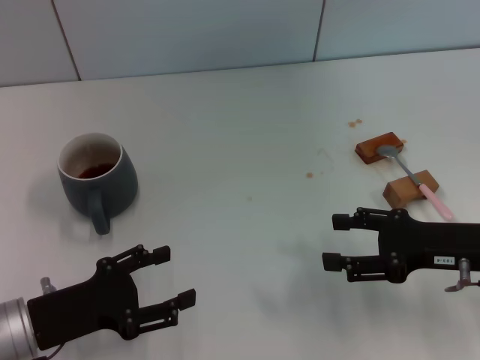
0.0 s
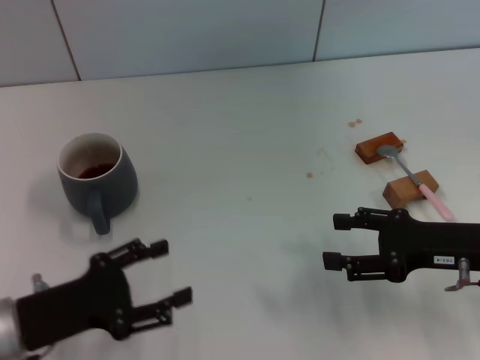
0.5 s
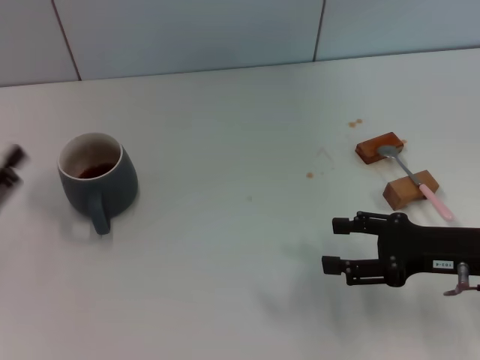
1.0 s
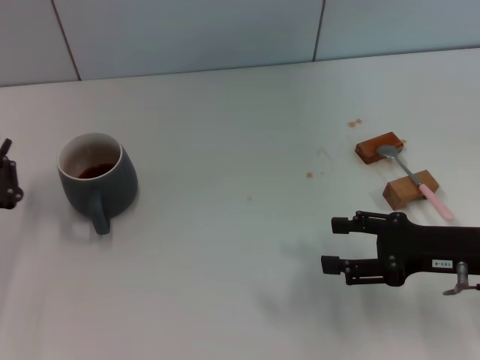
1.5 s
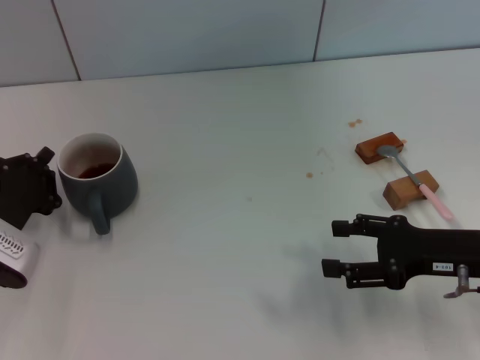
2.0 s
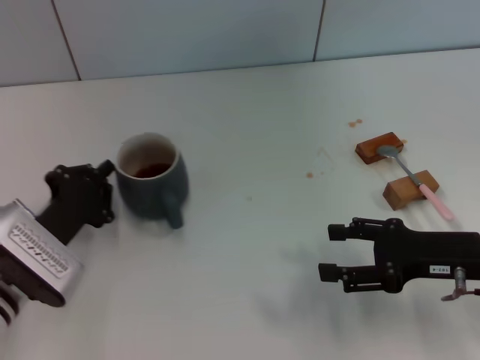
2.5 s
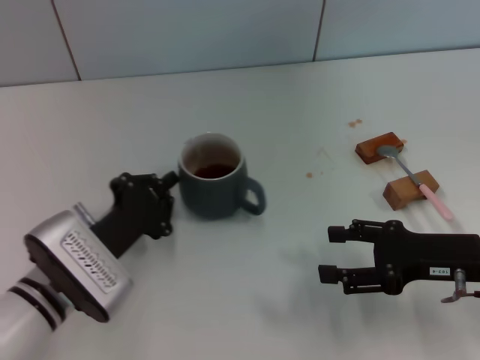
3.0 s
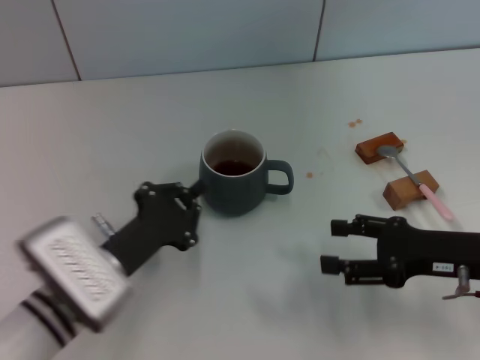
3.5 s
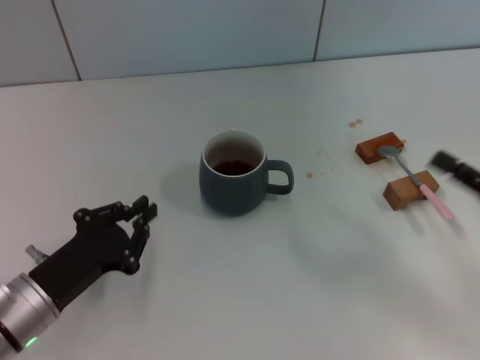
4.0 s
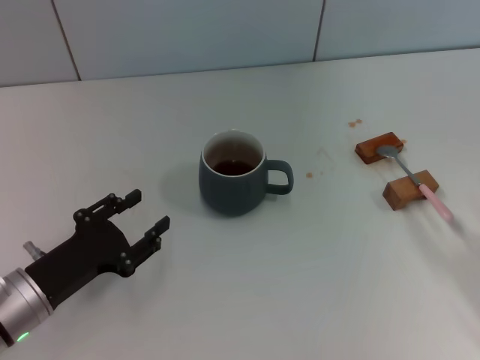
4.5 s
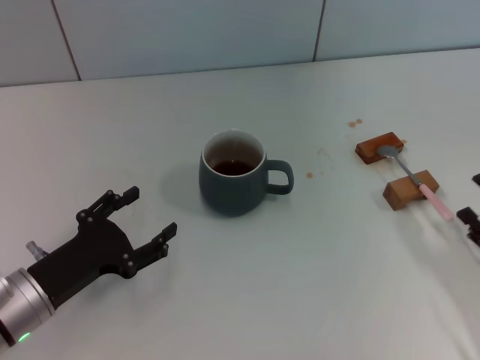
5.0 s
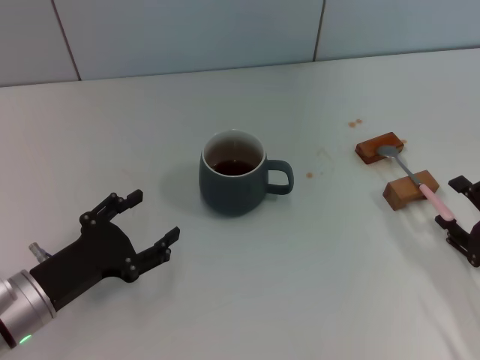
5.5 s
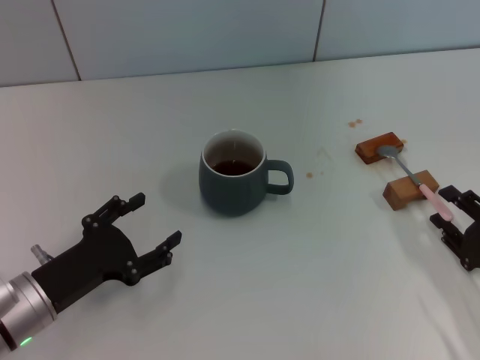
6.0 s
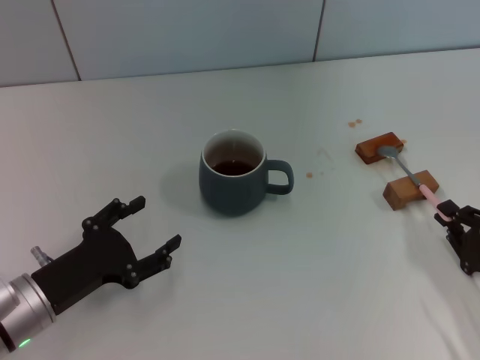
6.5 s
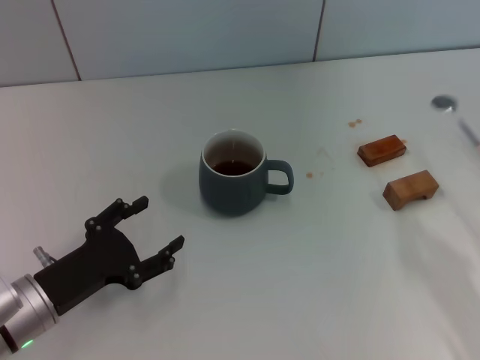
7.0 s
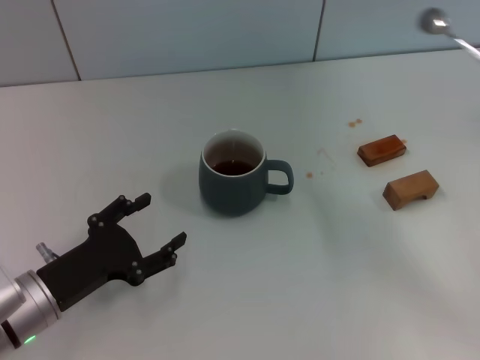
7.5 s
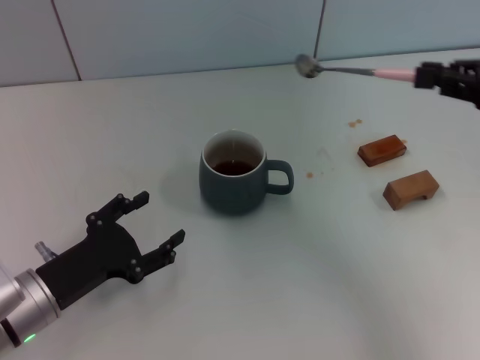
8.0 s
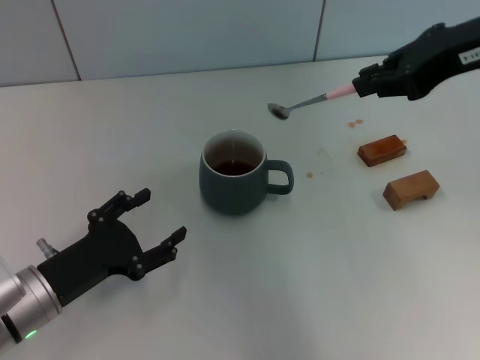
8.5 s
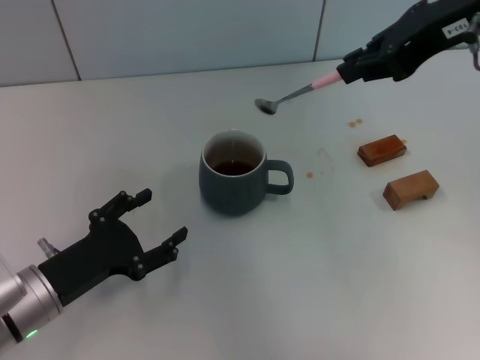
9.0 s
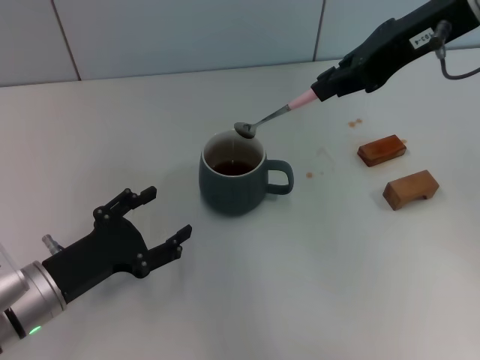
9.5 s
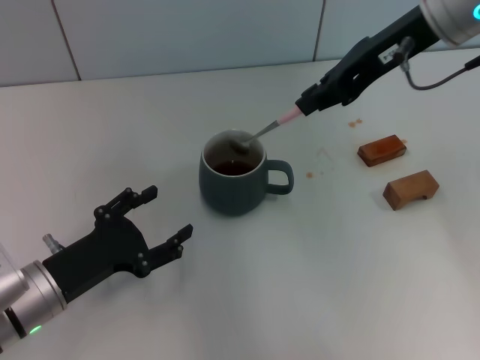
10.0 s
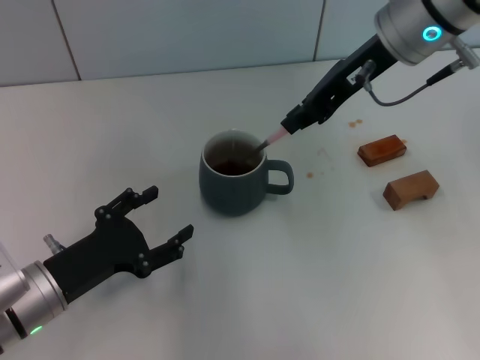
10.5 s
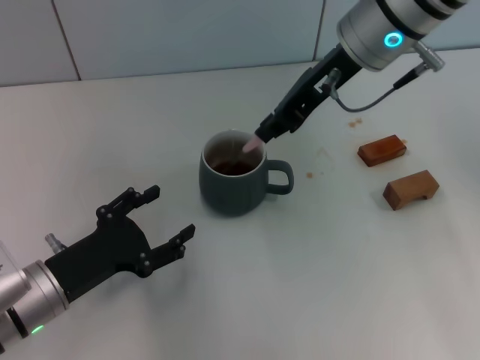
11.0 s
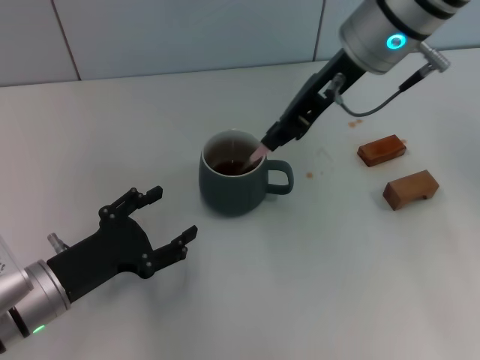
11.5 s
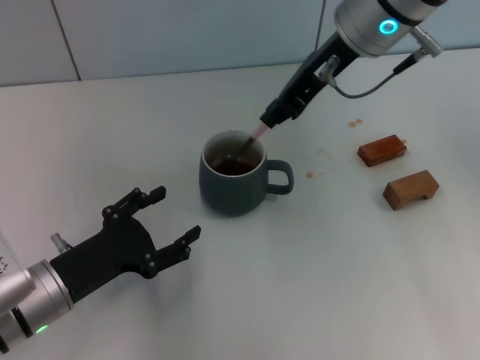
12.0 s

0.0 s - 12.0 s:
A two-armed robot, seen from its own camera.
Task of the whole recording: Move the grey cup to the center, lift the pink spoon, stir it three times in the cup, and put the spoon into the cup.
Step, 0.0 s - 3.0 s: Move the cup with coffee to the center of view with the left gripper.
Step, 3.5 s - 7.0 s: Pick up the spoon with the right gripper.
Step, 7.5 s - 11.5 s: Stir the coffee in the cup with the right gripper.
0.0 s - 2.0 s: The left gripper heads forward, covering roughly 5 cm, goes to the left and returns, roughly 10 cm each way, and closes up.
2.0 s - 4.0 s: The left gripper is displaced backward by about 5 cm. Meanwhile the right gripper moves to the right, approximately 5 cm.
4.0 s - 6.0 s: The left gripper opens, while the right gripper heads downward, covering about 5 cm.
6.0 s - 8.0 s: The right gripper moves upward and forward, roughly 25 cm, and closes its fingers.
8.0 s - 10.0 s: The right gripper travels to the left and forward by some 15 cm.
10.0 s - 12.0 s: The right gripper goes some 5 cm to the left.

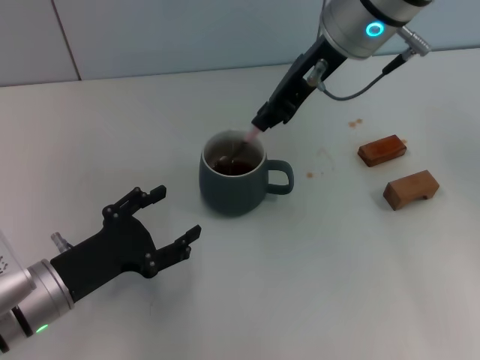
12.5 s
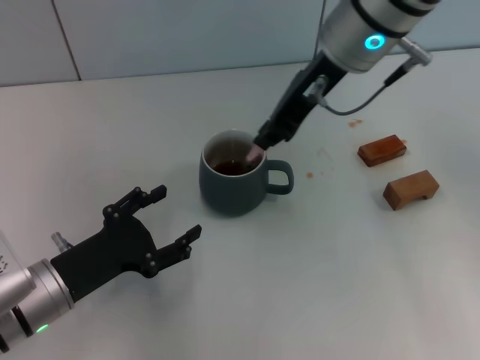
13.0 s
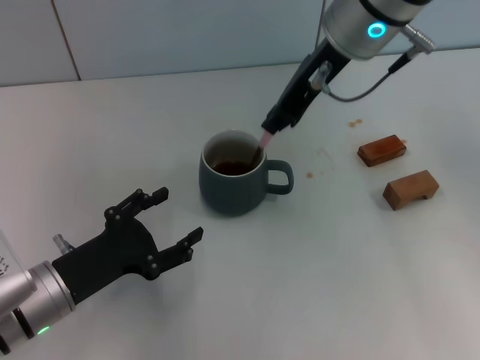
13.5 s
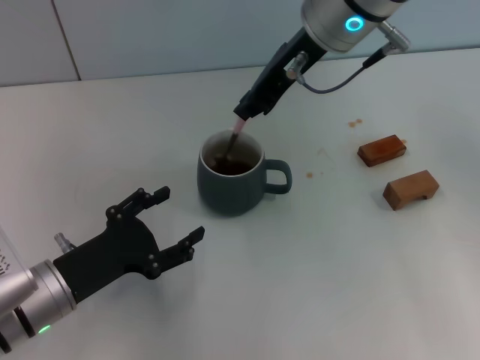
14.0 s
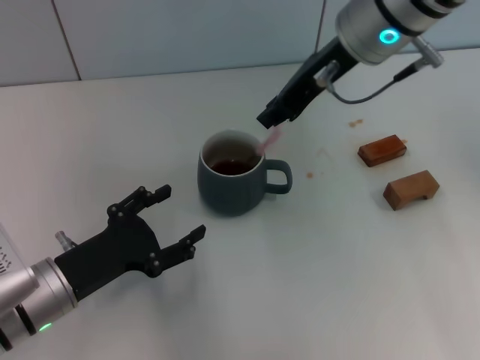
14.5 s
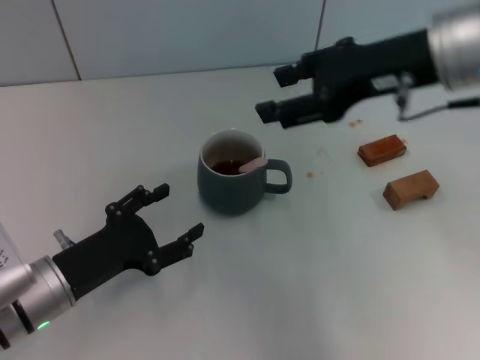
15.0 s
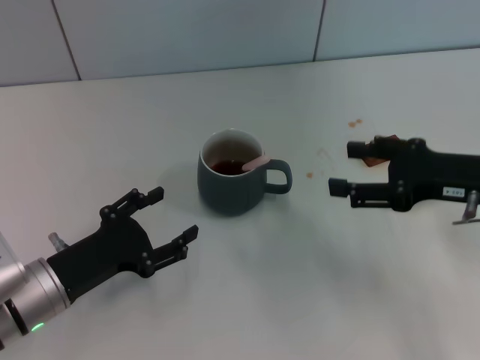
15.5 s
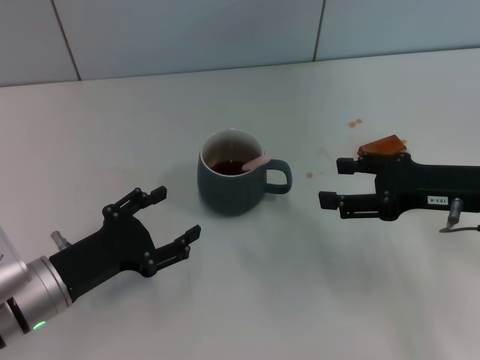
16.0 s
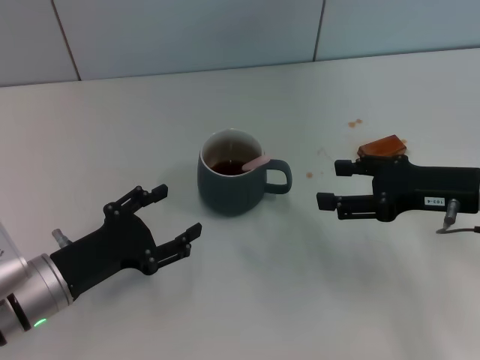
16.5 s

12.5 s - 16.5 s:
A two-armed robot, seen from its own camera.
Task of the whole recording: Move the grey cup to the center, lift the pink spoon, stir it three times in the cup, and put the spoon into the cup.
12.5 s - 14.5 s: The grippers move only a little.
14.5 s - 16.5 s: The right gripper travels to the right, downward and backward by roughly 25 cm, and opens.

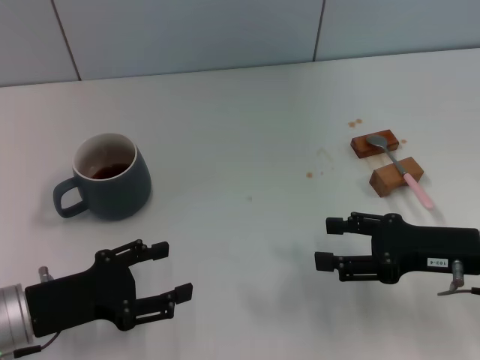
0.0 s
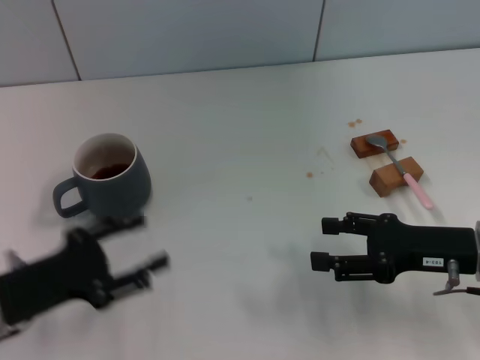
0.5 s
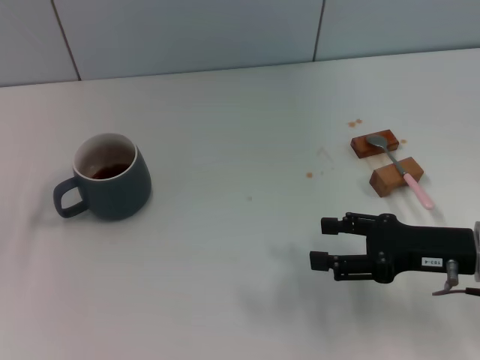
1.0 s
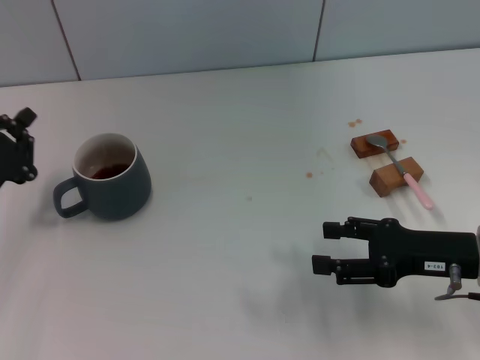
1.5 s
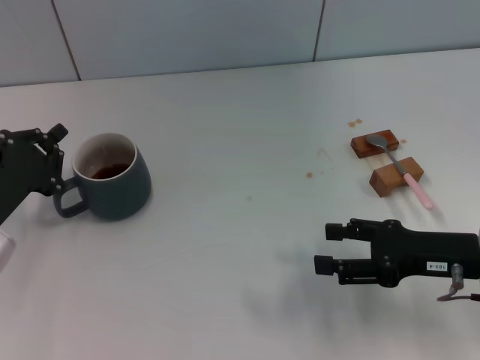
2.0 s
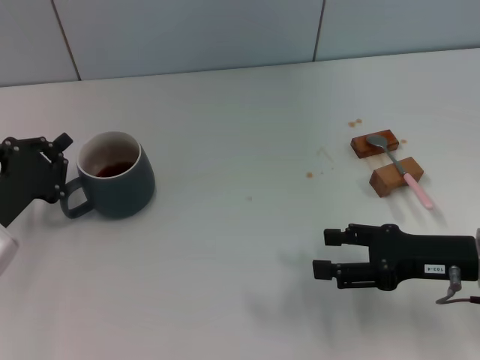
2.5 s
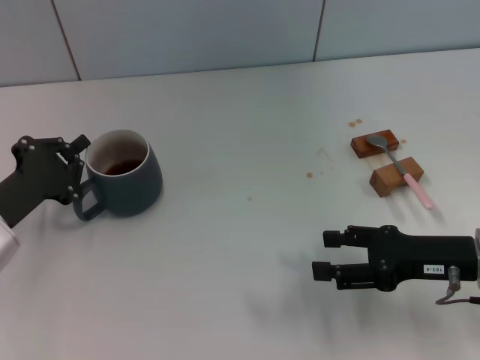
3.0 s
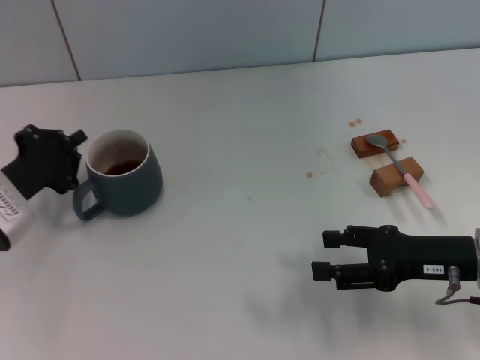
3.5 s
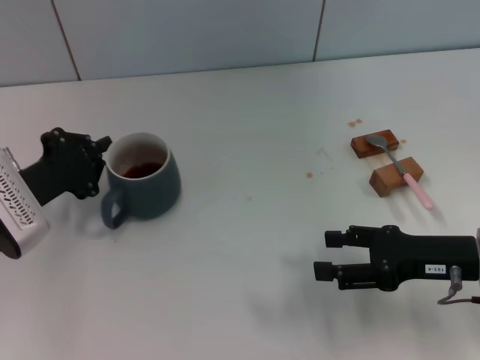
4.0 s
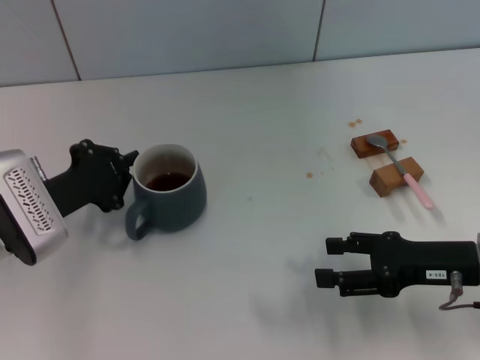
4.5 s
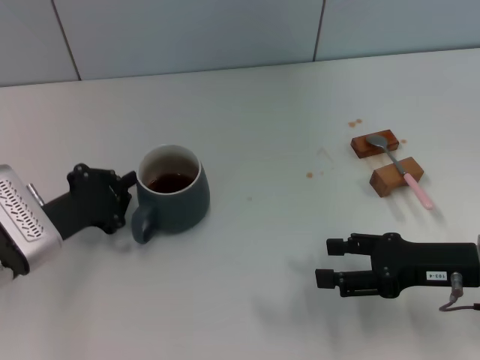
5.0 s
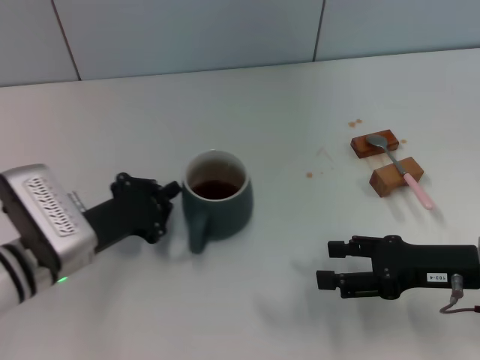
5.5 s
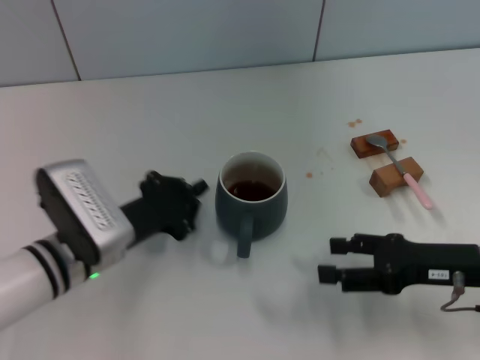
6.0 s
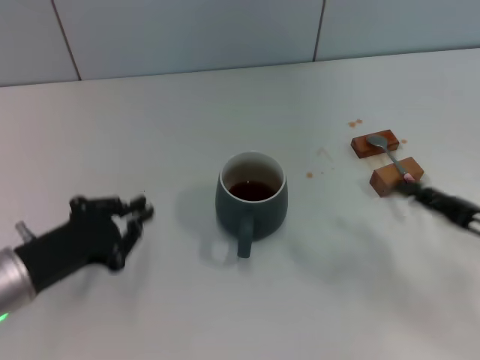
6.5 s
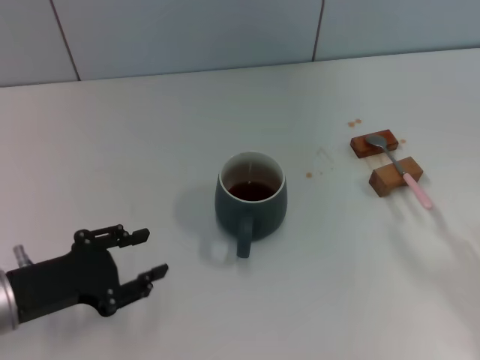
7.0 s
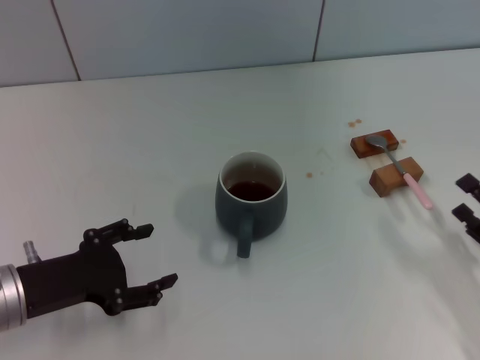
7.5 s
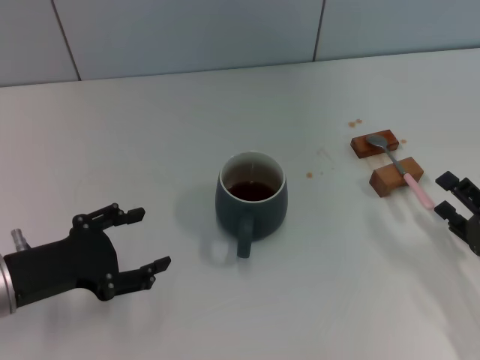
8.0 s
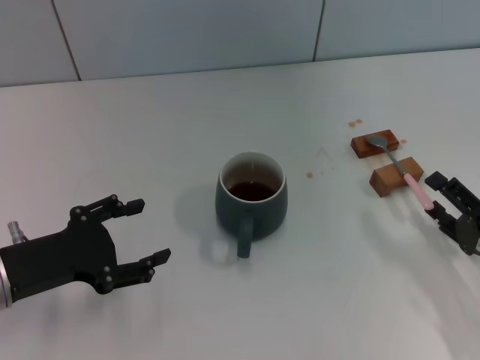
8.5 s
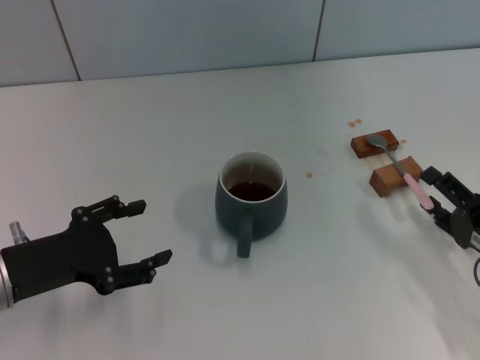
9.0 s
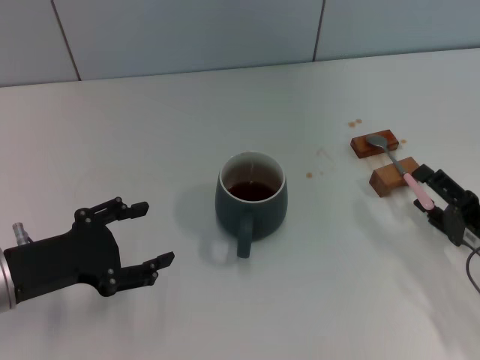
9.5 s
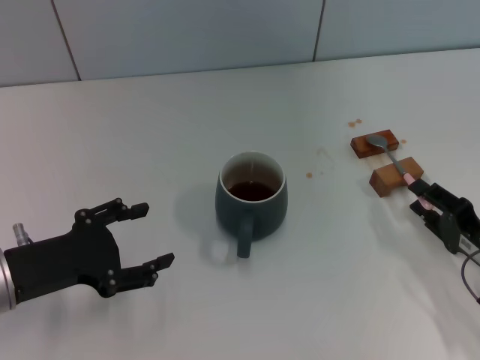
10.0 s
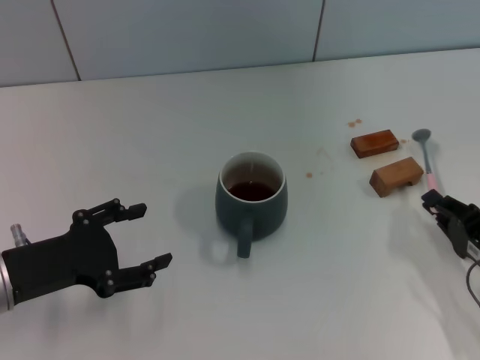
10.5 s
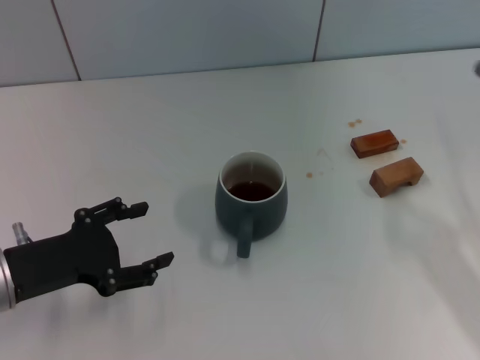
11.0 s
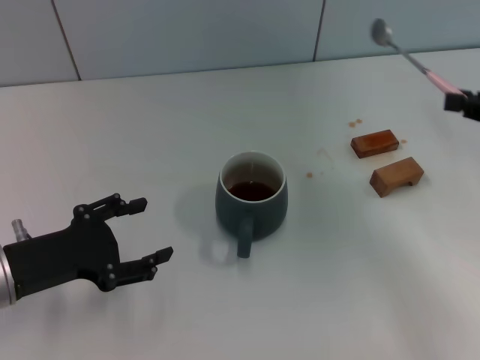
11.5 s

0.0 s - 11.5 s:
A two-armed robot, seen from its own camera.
Task of the whole recording: Move the grey cup to the center, lift the pink spoon, stir it three times in the cup, and put the spoon into the cup.
Step, 0.0 s - 3.0 s: Move the cup with coffee to the center of view with the left gripper.
Step, 4.0 s - 11.0 s: Pick up the spoon with the right gripper.
0.0 s - 2.0 s: The left gripper goes approximately 5 cm forward, and closes its fingers.
2.0 s - 4.0 s: The grippers make only small movements.
4.0 s - 6.0 s: The left gripper goes about 10 cm to the right.
6.0 s - 7.5 s: The left gripper shifts approximately 10 cm to the left and backward, and opens its fingers, while the right gripper goes roughly 10 cm backward and to the right.
7.5 s - 9.5 s: The grippers make only small movements.
9.5 s - 11.5 s: The right gripper shifts roughly 20 cm upward, and closes.
